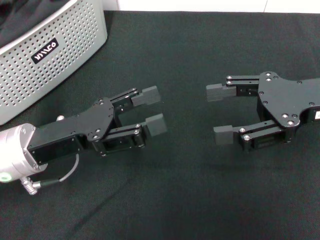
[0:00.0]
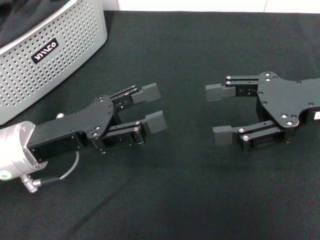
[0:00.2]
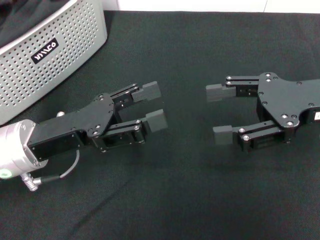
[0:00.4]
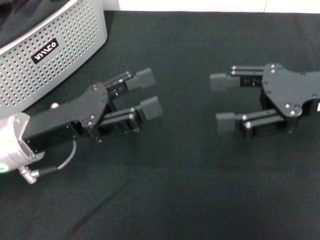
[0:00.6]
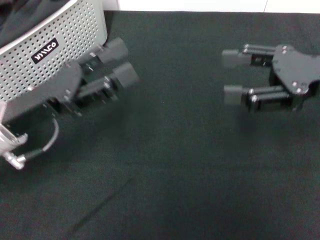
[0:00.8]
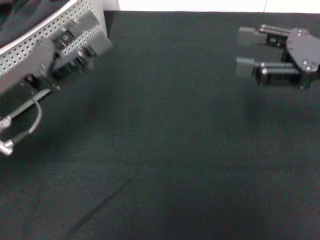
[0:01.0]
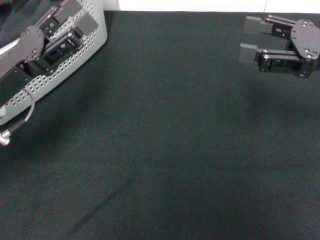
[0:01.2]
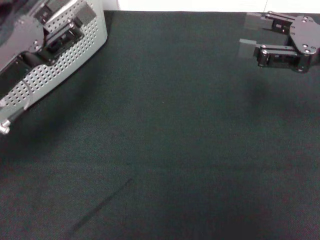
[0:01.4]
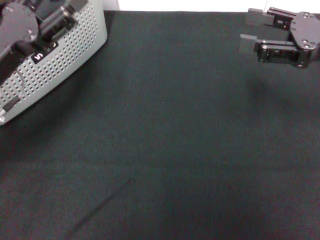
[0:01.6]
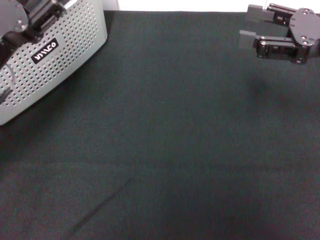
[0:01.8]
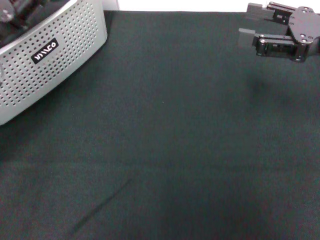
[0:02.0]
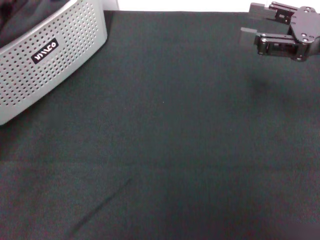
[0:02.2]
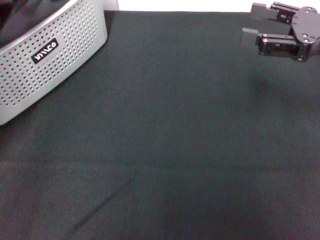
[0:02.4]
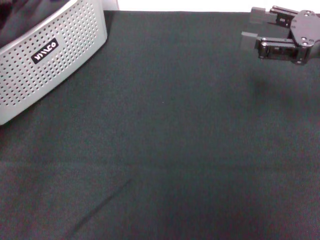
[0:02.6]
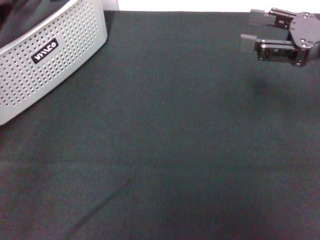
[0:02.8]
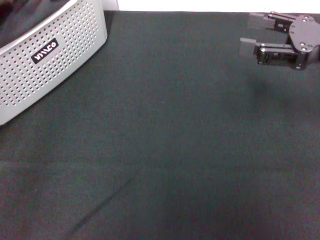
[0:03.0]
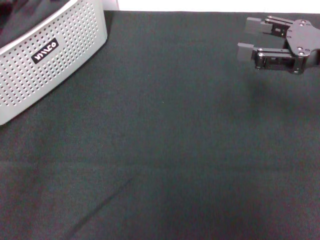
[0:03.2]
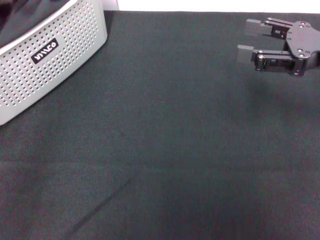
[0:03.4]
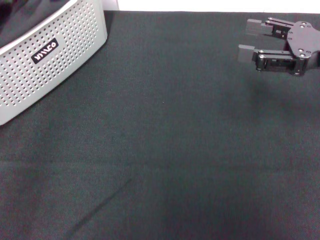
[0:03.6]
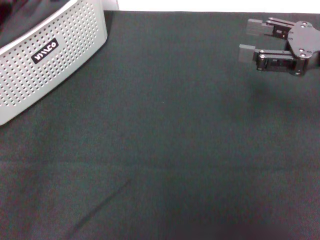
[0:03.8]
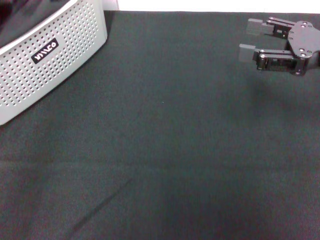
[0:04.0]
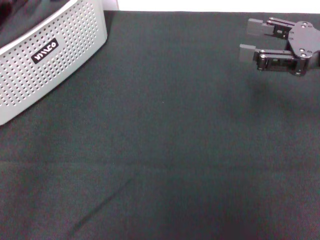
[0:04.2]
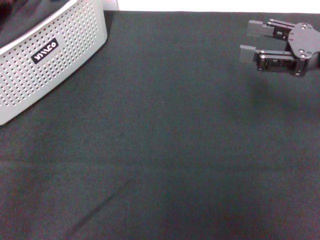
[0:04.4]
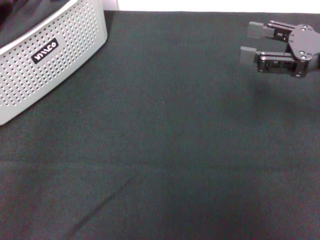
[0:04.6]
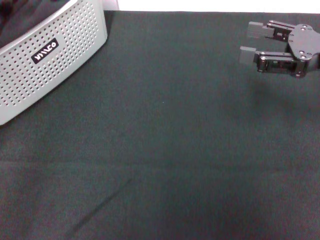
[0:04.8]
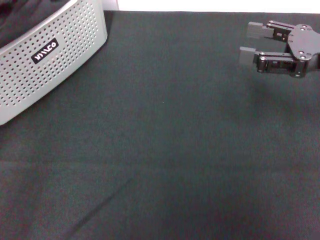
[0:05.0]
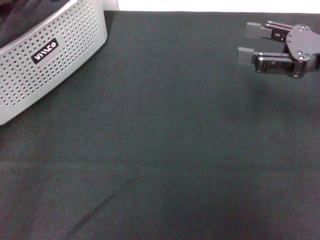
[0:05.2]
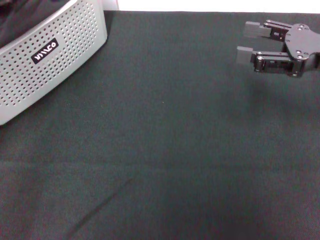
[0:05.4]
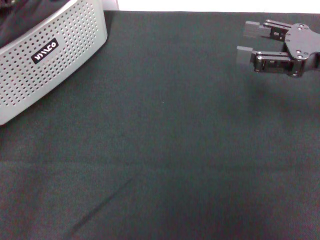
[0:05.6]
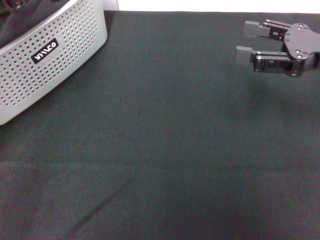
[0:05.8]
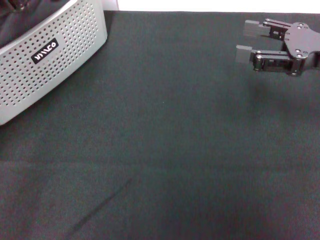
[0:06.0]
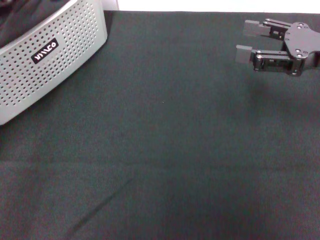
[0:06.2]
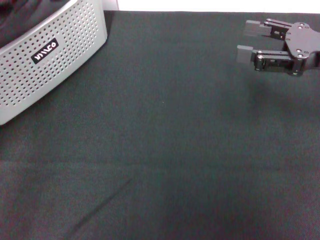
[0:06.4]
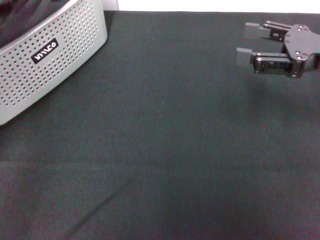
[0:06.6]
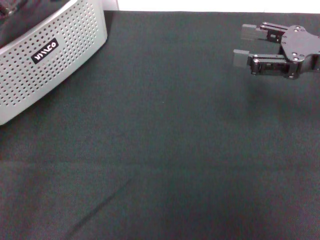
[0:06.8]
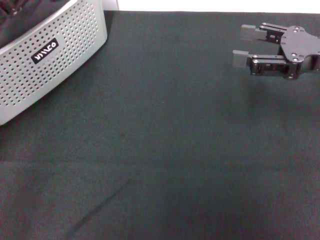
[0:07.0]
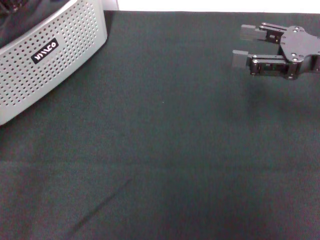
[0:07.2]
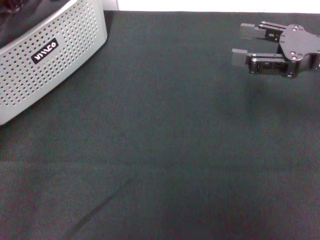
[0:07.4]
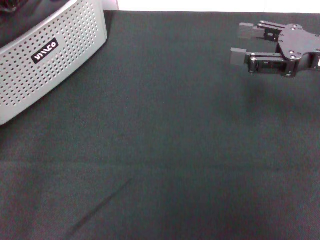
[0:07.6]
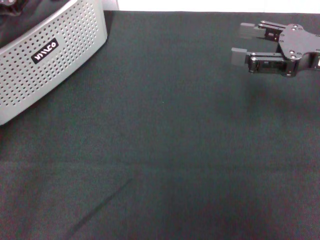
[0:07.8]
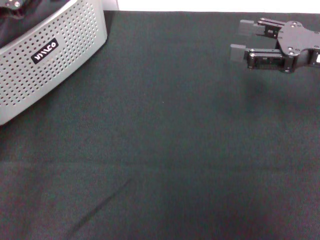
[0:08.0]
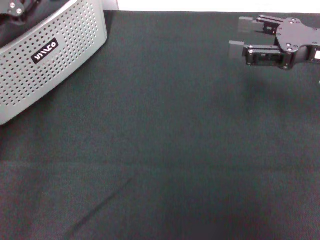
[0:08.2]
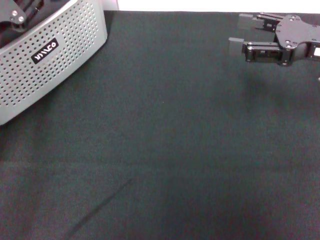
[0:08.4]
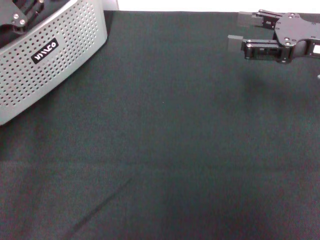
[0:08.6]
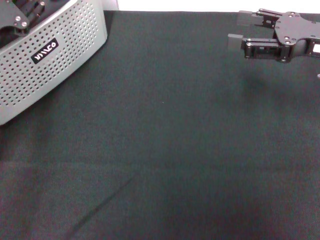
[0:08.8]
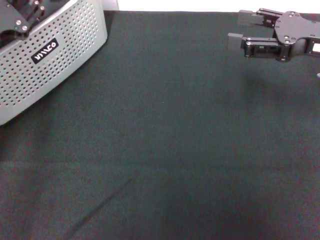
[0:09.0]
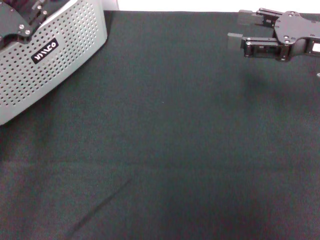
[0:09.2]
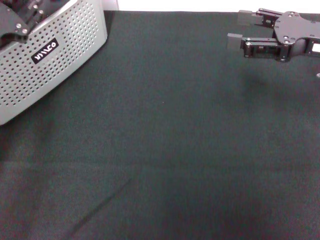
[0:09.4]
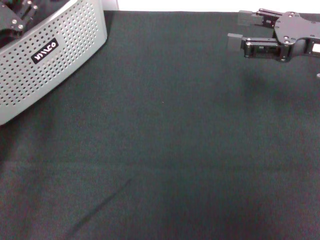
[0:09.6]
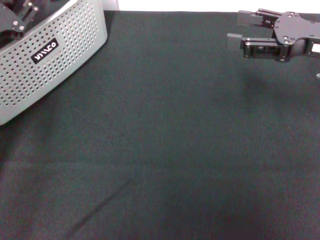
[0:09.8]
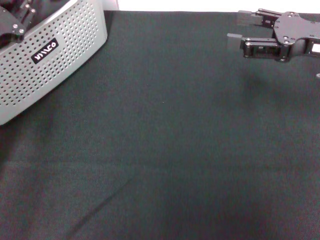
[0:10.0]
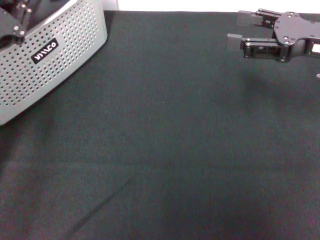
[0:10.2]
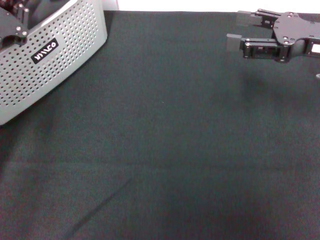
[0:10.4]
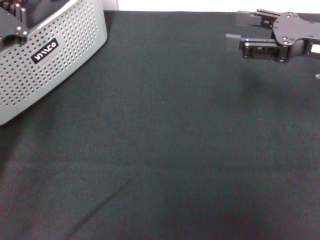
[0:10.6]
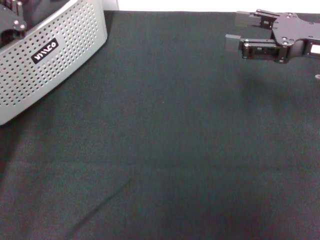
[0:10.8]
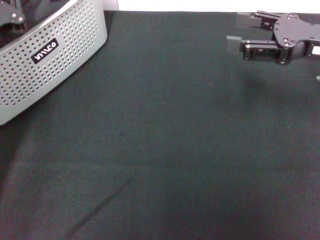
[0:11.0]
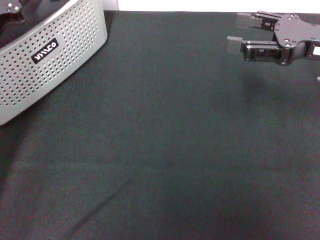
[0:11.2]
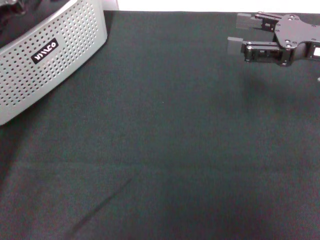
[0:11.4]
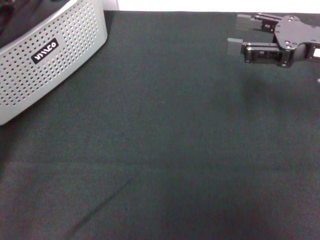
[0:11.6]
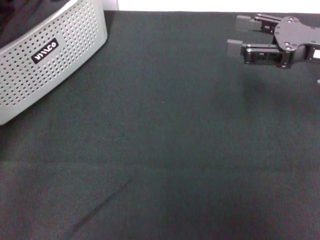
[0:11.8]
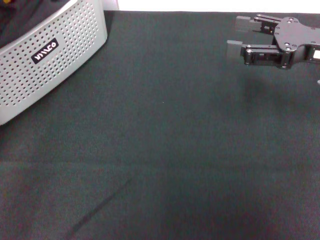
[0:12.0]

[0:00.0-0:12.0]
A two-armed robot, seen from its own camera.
Task of the whole recording: pick up the towel from the storage box and lay it flat on the black tablecloth.
Step, 0:00.0 to 0:10.8: Pick up a towel with the left gripper.
0:00.0 to 0:01.6: The left gripper changes place by some 5 cm.
0:01.6 to 0:03.0: The left gripper is displaced to the left by some 5 cm.
0:04.4 to 0:06.0: The left gripper moves to the right, some 5 cm.
0:09.0 to 0:10.4: There are only small adjustments of the grippers.
0:10.4 to 0:12.0: The left gripper shifts roughly 10 cm upward, and closes up.

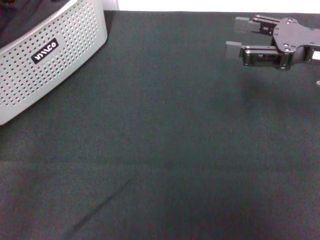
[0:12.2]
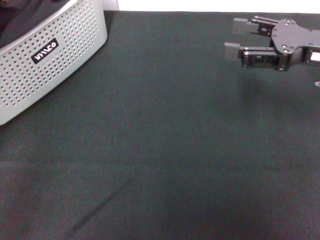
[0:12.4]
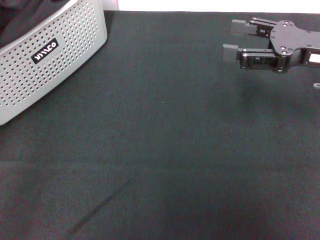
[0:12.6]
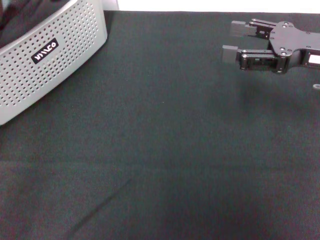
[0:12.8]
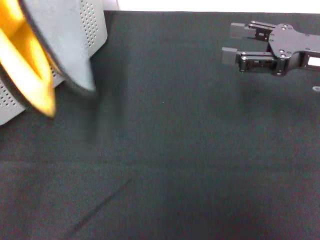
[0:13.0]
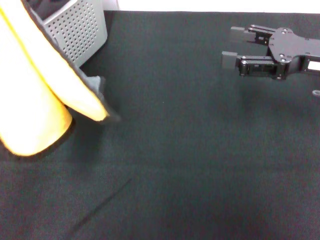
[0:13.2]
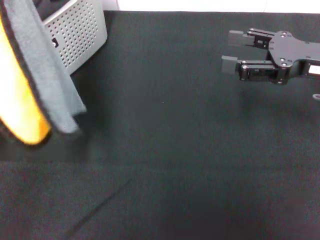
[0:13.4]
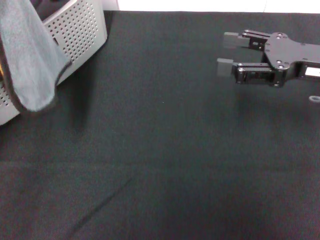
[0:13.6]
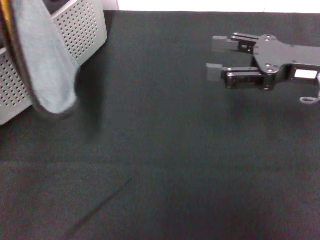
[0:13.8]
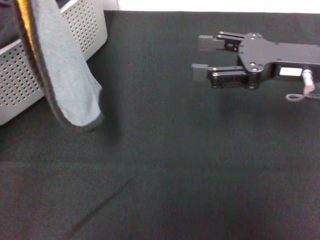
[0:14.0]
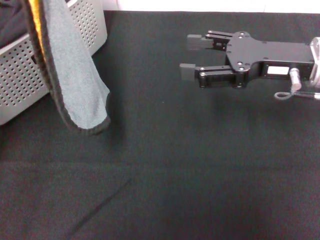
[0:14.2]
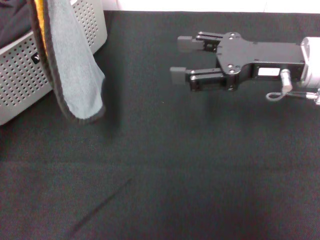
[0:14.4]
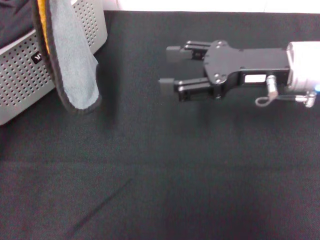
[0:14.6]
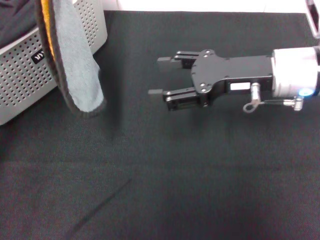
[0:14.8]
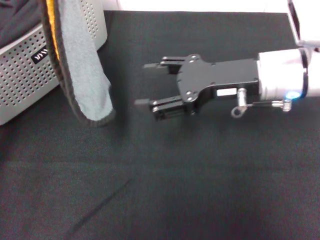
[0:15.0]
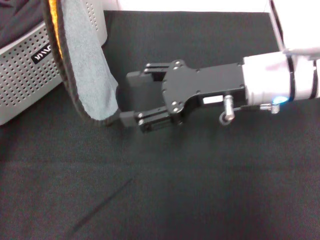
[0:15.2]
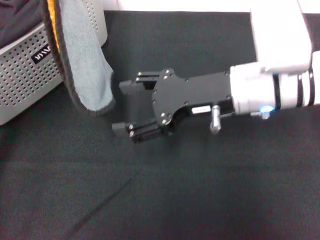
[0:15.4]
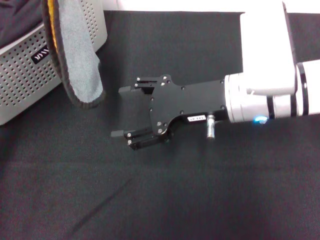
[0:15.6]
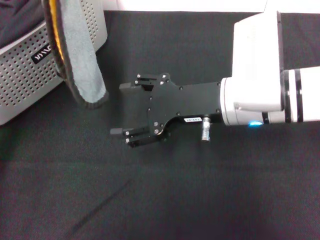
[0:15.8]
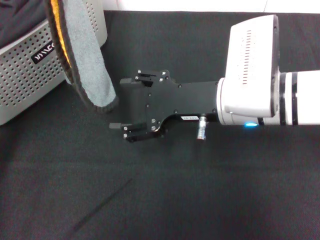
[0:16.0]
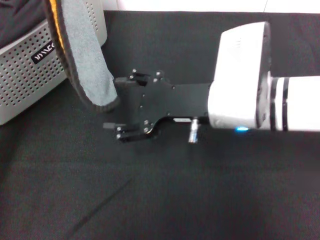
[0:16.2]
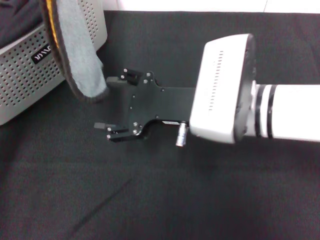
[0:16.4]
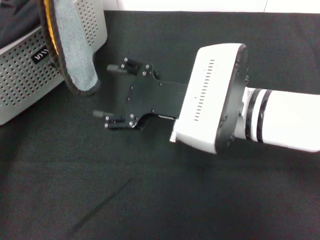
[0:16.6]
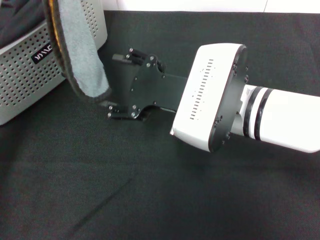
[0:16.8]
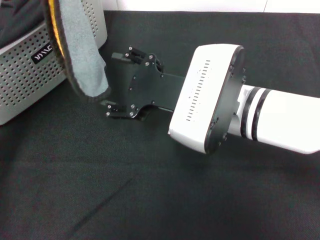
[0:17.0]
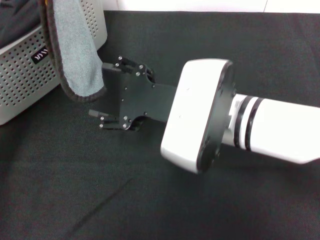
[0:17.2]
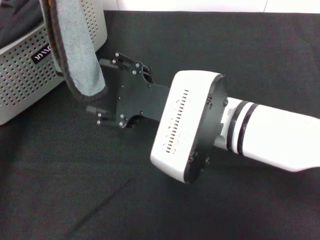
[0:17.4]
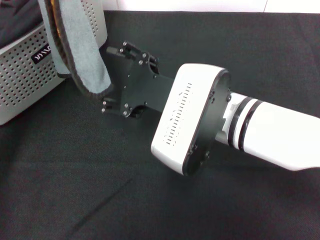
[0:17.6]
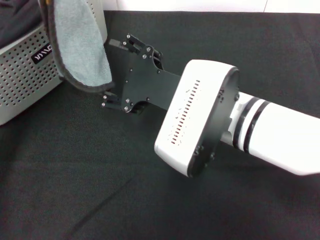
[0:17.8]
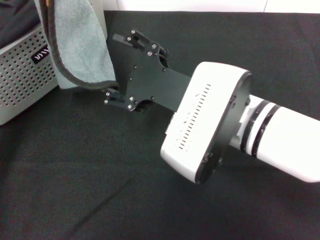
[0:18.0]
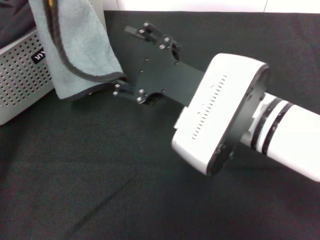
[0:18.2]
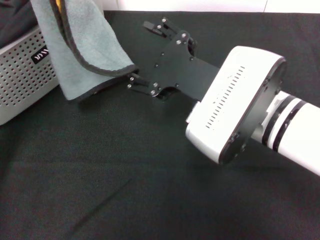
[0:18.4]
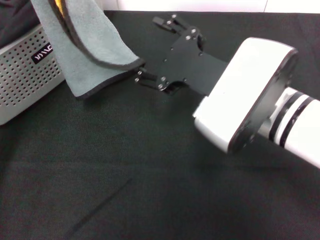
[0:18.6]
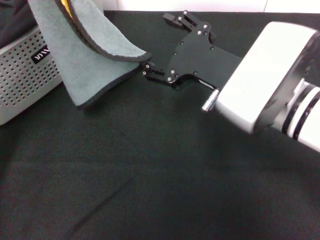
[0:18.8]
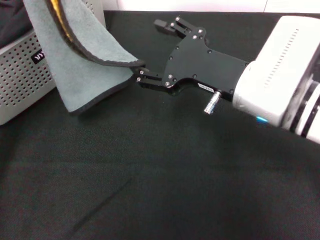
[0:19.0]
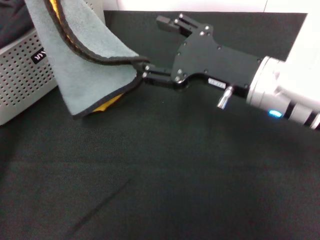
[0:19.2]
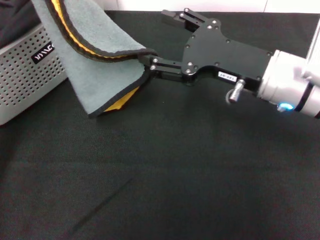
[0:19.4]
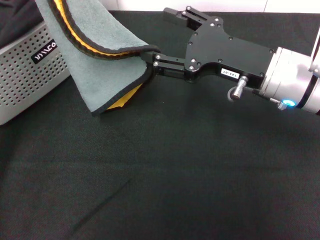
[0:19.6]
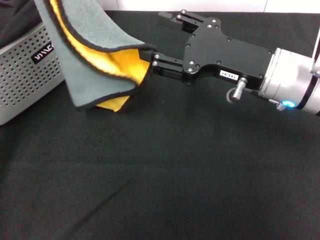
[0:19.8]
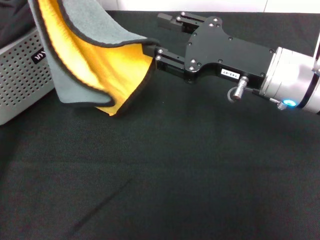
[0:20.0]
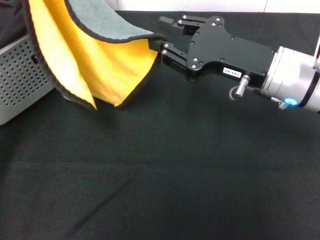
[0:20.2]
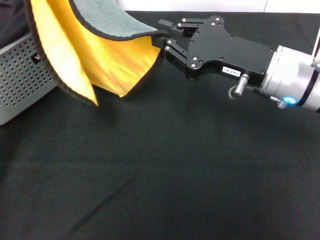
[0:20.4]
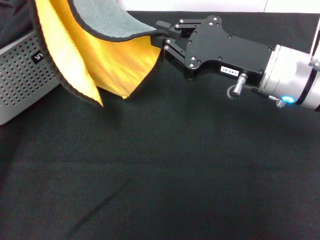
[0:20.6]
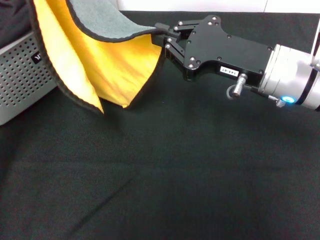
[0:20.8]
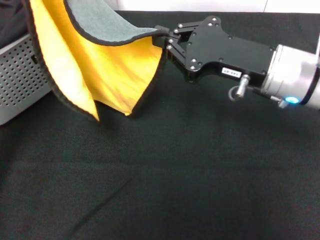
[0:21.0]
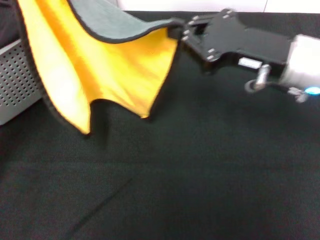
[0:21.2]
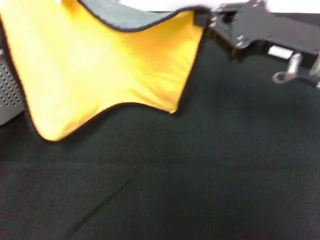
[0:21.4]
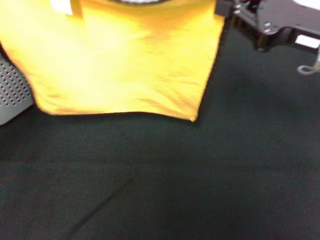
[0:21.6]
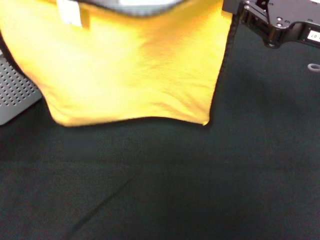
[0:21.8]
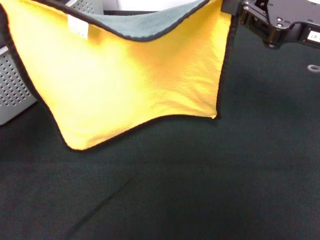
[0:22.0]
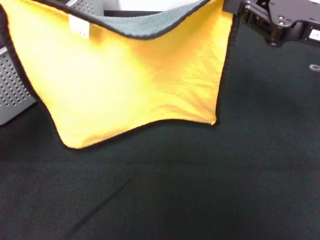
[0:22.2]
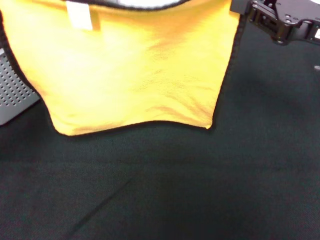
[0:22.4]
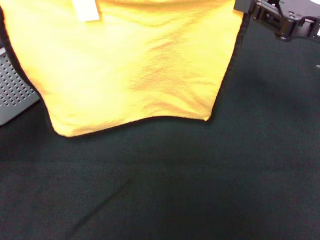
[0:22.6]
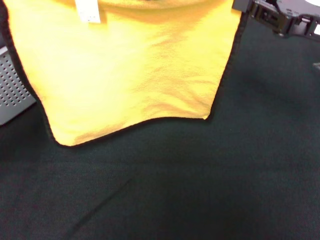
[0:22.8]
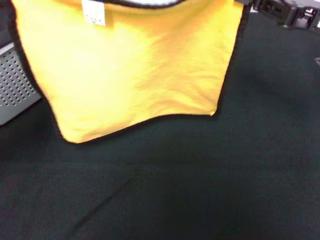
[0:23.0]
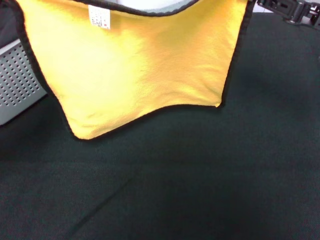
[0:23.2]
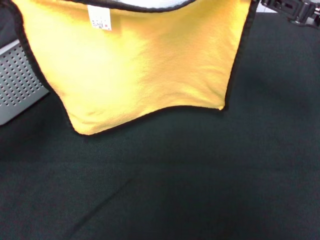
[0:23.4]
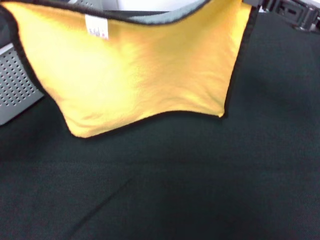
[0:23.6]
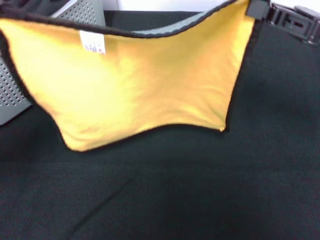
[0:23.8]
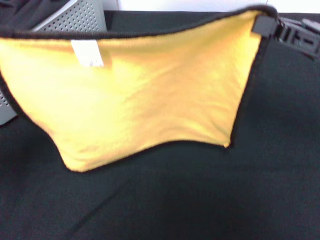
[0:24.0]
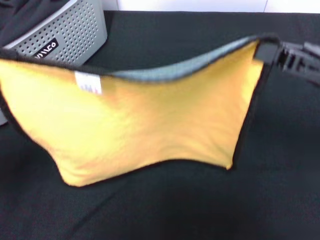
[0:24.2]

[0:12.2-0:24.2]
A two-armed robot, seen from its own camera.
Task of the whole recording: pick up the towel from the storage box and lay it flat on the black tablecloth.
Step, 0:12.2 to 0:20.8: Spread the towel flat with the left gripper.
0:13.8 to 0:15.2: The right gripper goes some 10 cm to the left.
0:15.2 to 0:16.6: The right gripper heads to the left, covering some 5 cm.
0:16.6 to 0:18.2: The grippers make only small movements.
0:18.2 to 0:19.8: The right gripper goes roughly 10 cm to the right and forward.
0:19.8 to 0:21.2: The right gripper closes its fingers.
0:21.2 to 0:22.6: The left gripper moves approximately 5 cm; the right gripper shifts some 5 cm to the right.
0:22.6 to 0:24.2: The right gripper ends up some 5 cm from where it was, while the left gripper moves approximately 5 cm.
